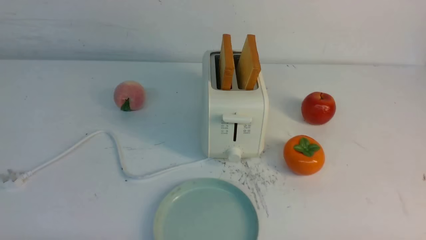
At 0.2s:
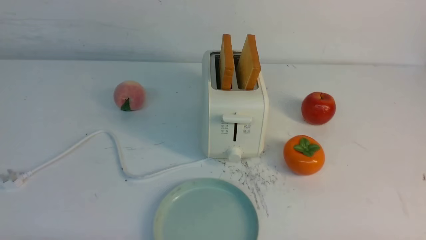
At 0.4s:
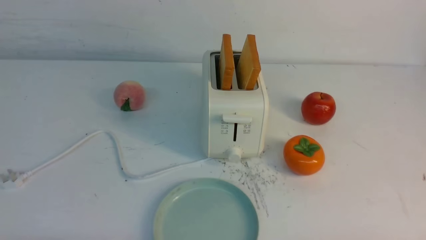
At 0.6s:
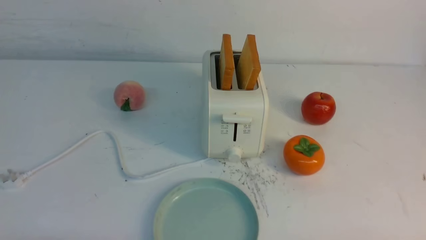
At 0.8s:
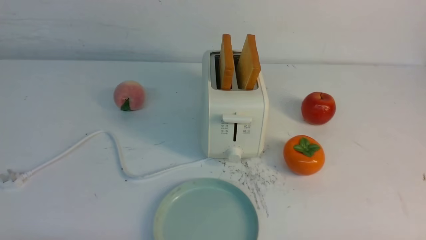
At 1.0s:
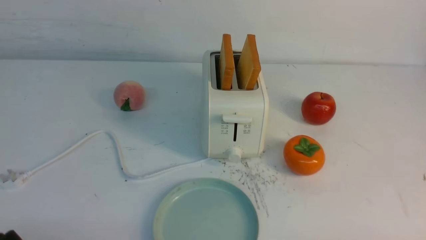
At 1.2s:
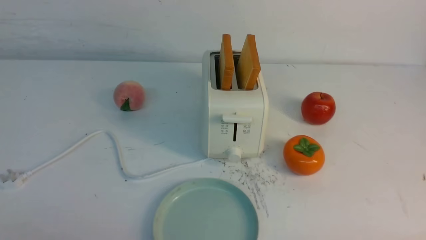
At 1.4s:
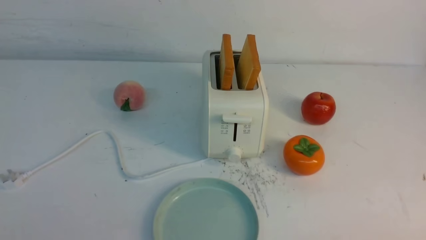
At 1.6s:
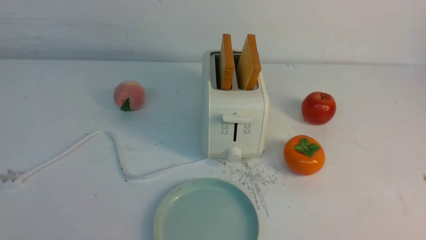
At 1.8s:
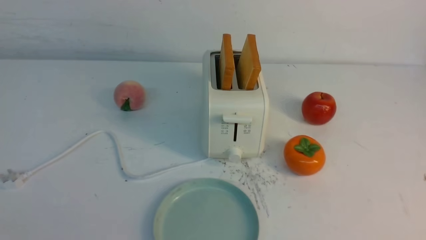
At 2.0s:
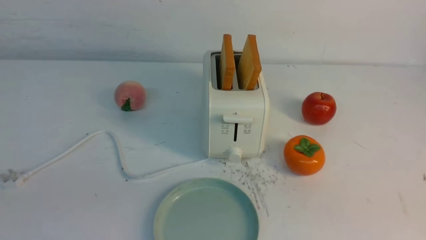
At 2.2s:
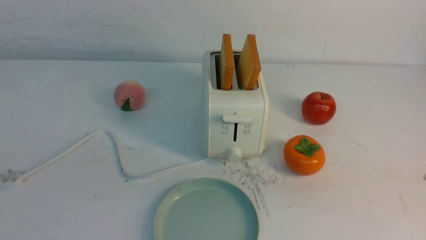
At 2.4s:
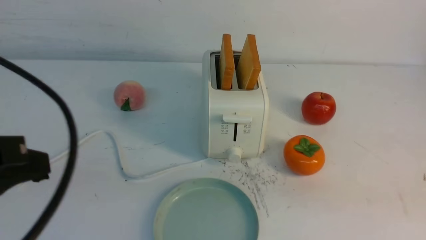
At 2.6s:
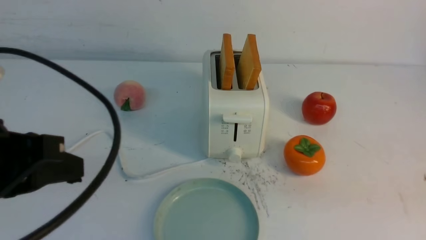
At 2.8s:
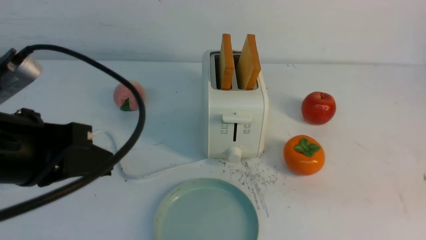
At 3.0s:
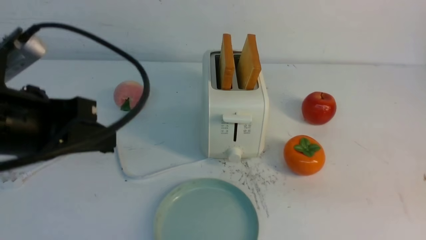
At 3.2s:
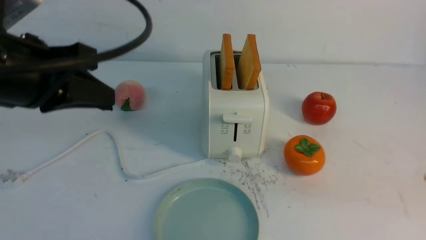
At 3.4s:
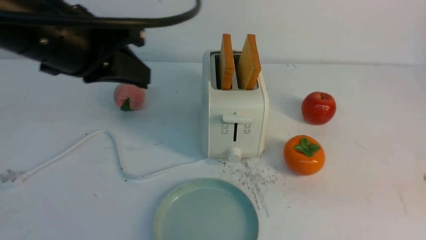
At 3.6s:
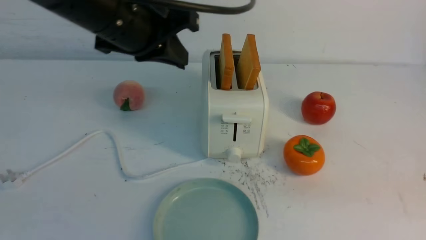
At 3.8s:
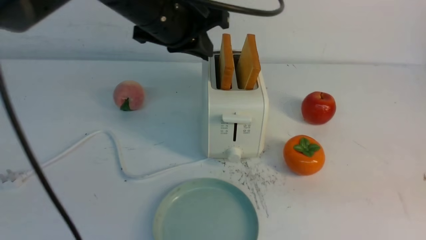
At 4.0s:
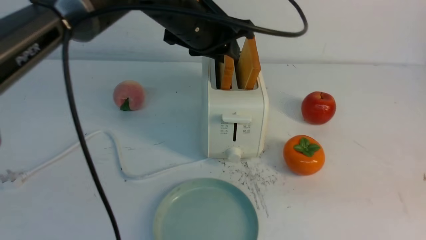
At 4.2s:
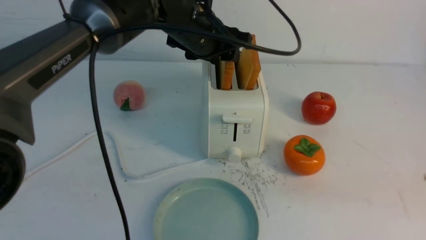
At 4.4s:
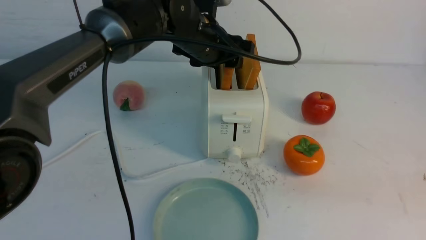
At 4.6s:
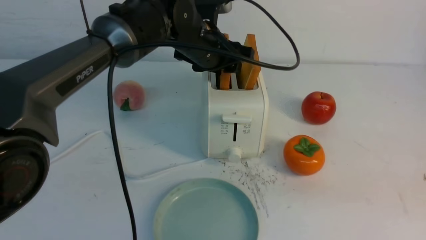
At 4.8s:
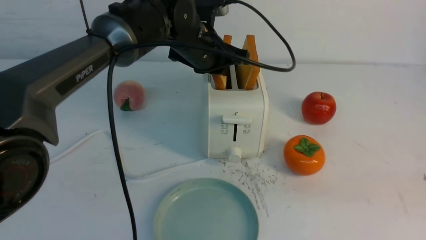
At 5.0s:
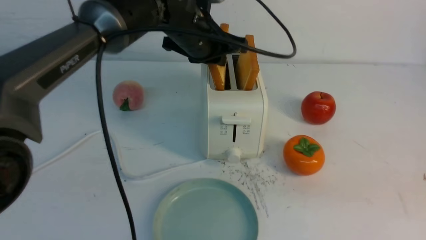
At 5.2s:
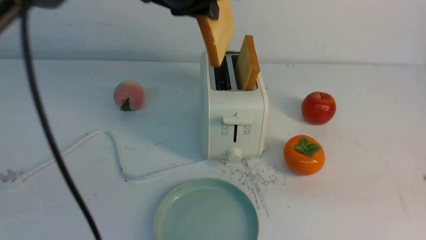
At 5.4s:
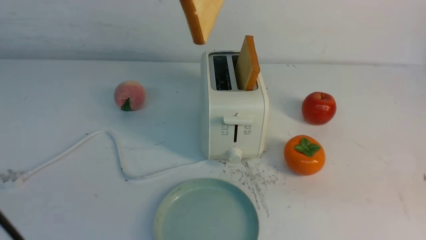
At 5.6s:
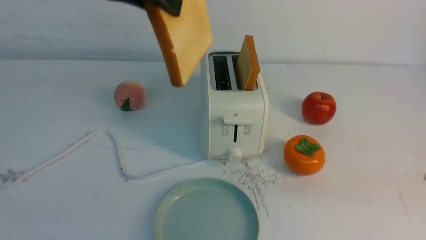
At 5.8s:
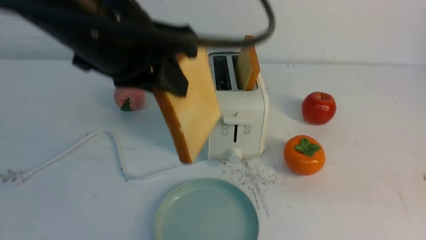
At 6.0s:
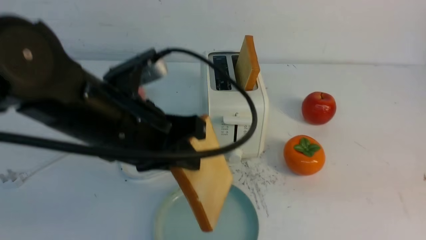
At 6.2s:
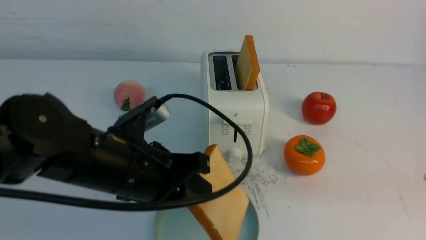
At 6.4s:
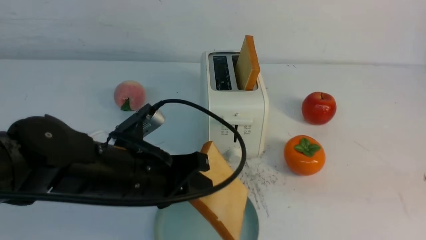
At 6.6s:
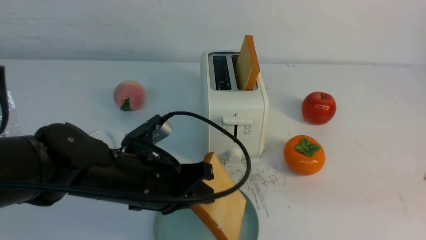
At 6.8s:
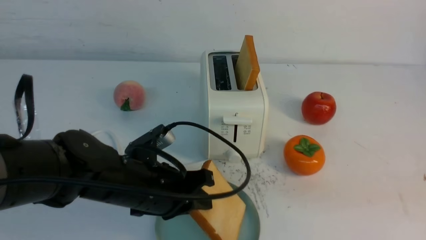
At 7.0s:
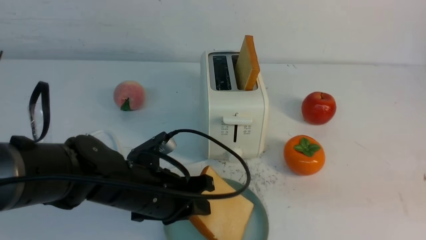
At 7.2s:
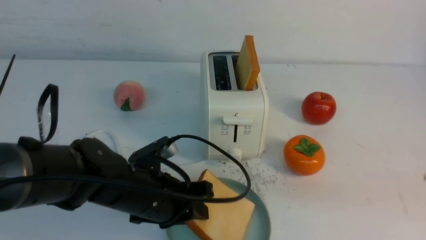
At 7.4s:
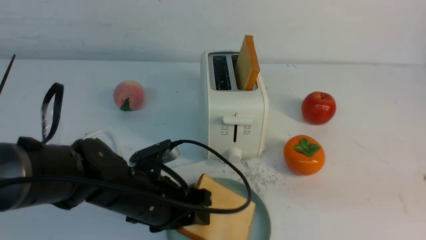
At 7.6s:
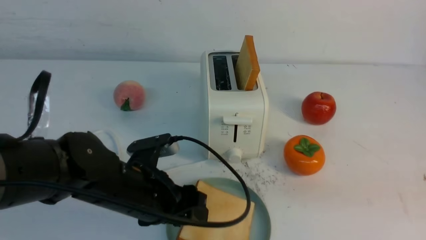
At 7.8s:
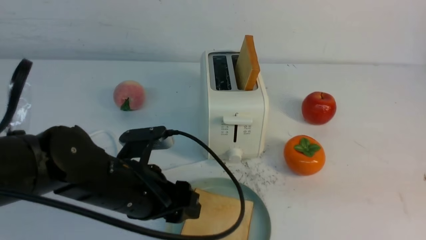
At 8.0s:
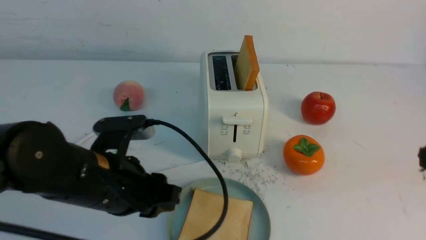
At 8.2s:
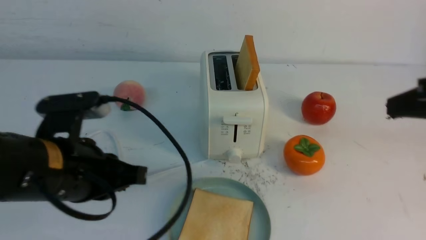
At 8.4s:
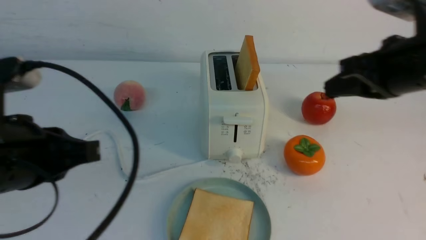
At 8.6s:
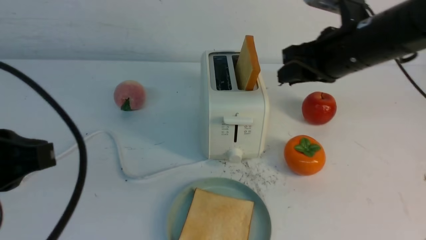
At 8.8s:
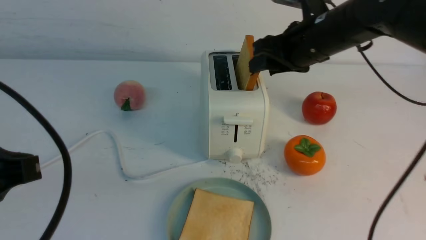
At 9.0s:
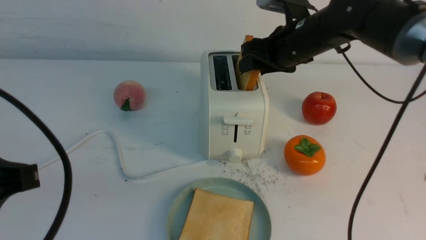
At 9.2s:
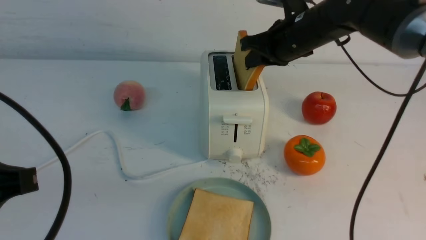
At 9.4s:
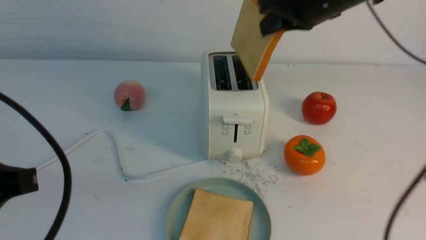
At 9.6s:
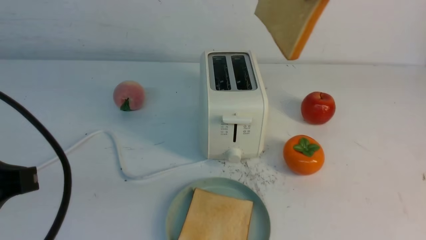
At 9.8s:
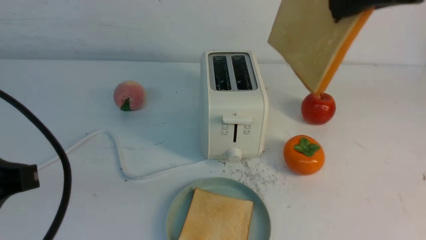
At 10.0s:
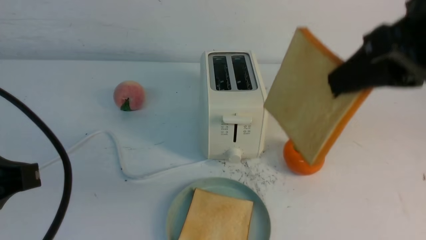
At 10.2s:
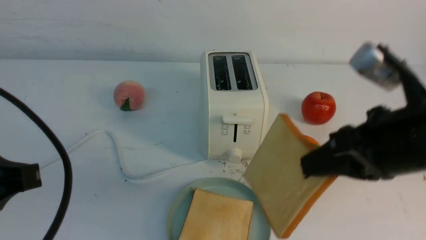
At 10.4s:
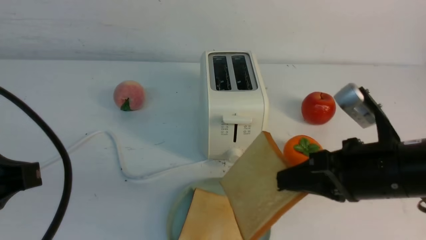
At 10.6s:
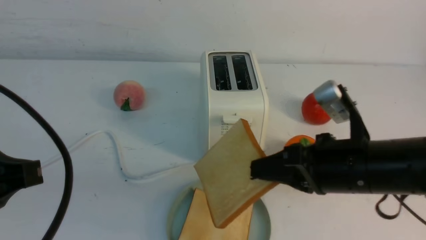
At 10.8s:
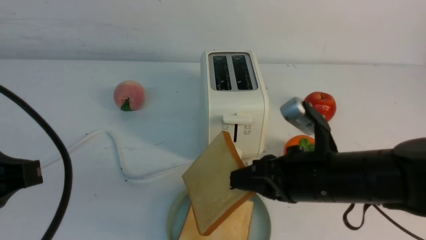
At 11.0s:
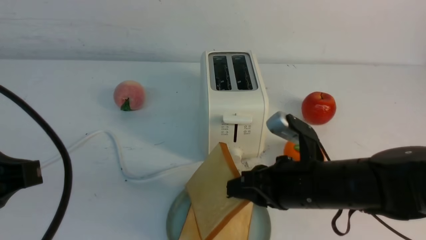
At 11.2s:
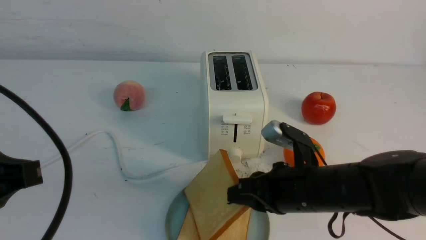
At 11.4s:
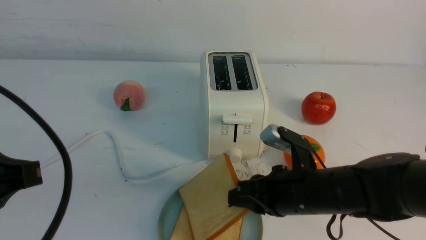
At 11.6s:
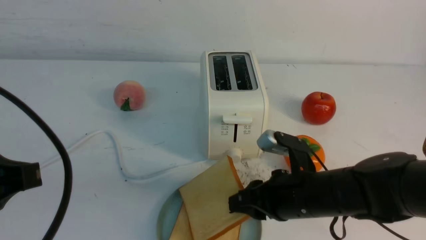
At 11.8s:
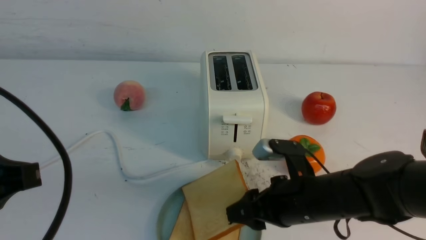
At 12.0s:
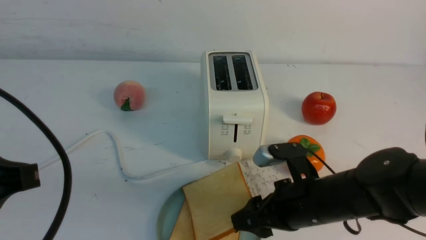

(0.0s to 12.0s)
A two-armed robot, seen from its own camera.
Task of the whole recording: take toasted bread from bread machine on white table place on plate.
Step, 0.0s - 5.0s: use the left arm to take out a slice of bread.
Step, 5.2s - 7.8s: use the left arm to put a slice of bread into the empty plate.
Step, 8.0s - 9.2s: use the right arm to take out a slice of bread.
1.6s - 3.0s: The left gripper is displaced forward, upward and to the right by some 20 cm.
3.0s - 4.4s: The left gripper travels forward and to the right by about 30 cm, and opens.
4.4s - 6.0s: The left gripper shifts roughly 20 cm backward, and closes up.
6.0s - 7.6s: The left gripper travels downward by some 15 cm, and opens.
7.6s - 9.0s: The right gripper travels forward and to the left by roughly 35 cm, and opens its fingers. The left gripper moves upward, backward and to the left, approximately 20 cm, and closes up.
9.0s - 10.4s: The right gripper heads backward, covering some 20 cm, and closes.
10.4s - 12.0s: The right gripper moves downward, some 10 cm, and opens.

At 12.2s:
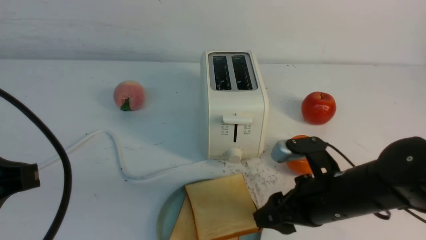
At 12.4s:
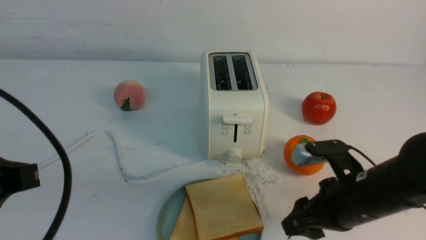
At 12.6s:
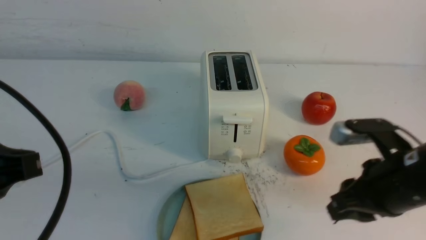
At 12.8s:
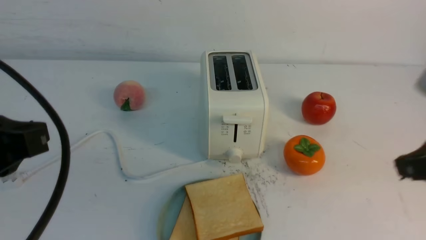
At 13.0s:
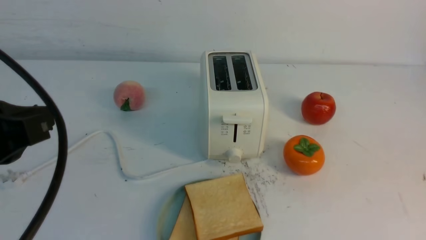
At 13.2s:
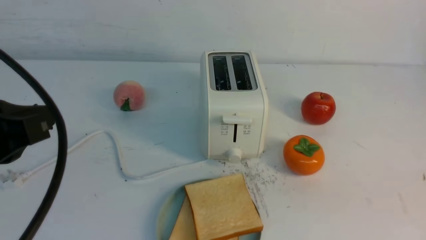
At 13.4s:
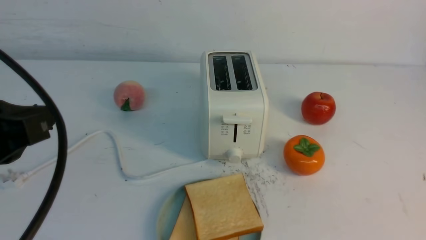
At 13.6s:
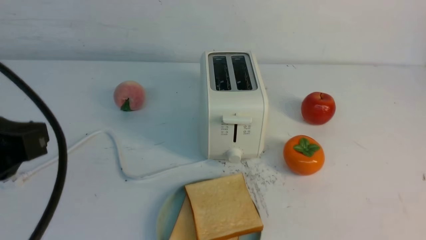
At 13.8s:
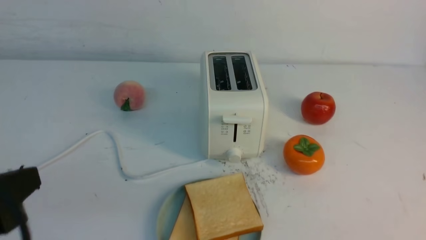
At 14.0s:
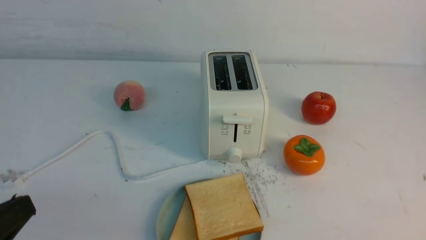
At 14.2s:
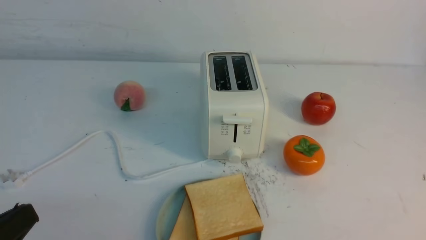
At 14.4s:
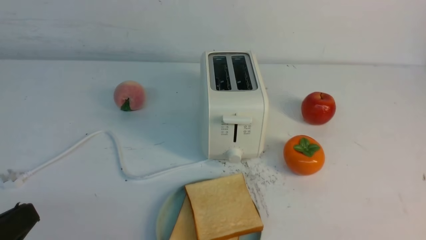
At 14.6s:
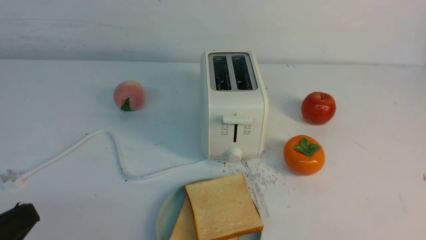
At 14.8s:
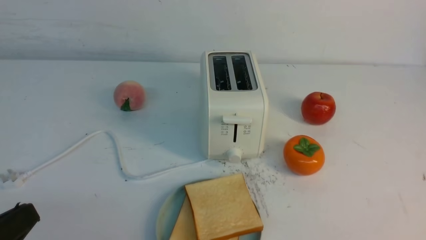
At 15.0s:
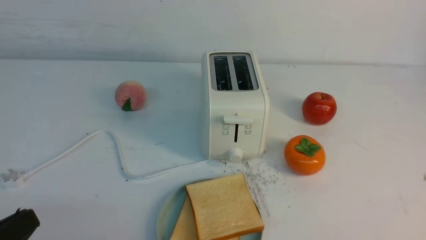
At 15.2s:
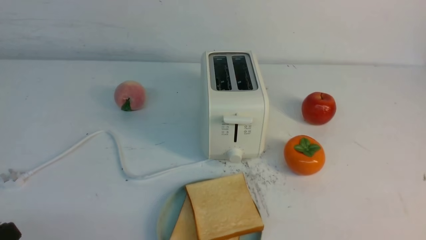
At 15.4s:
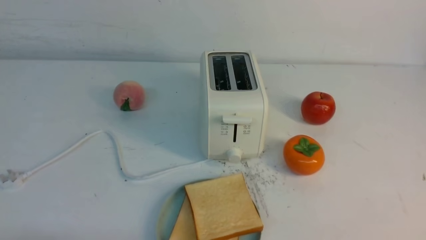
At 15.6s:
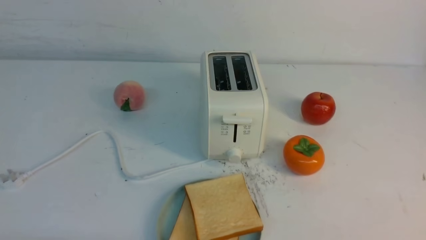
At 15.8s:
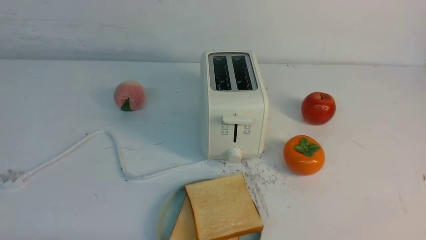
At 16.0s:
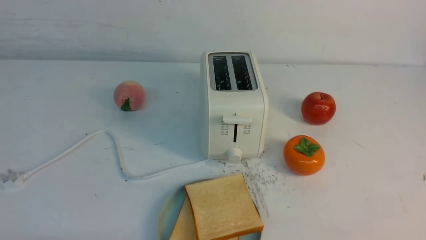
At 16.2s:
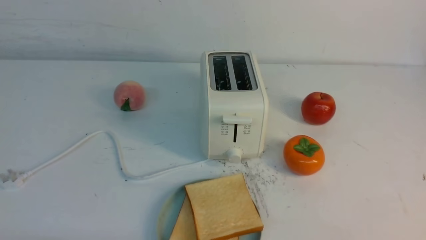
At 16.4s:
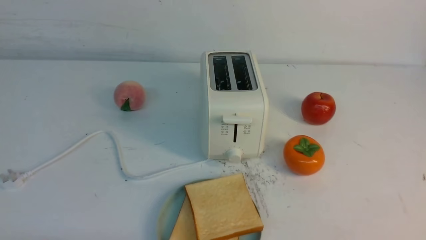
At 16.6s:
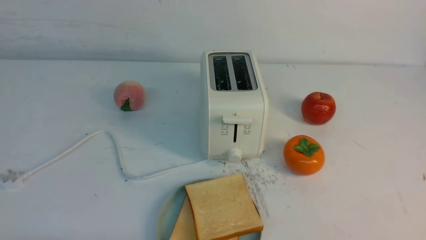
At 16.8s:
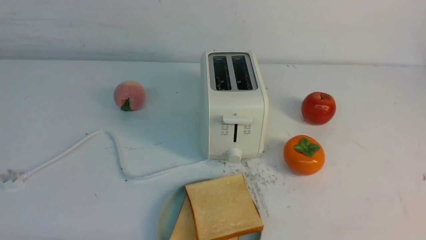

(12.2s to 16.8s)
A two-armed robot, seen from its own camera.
Task of the whole recording: take toasted bread from bread machine on white table place on plate.
12.2s - 13.8s: The right gripper travels backward, to the right and upward by some 30 cm, and closes.
13.8s - 15.2s: The left gripper moves downward, some 10 cm.
